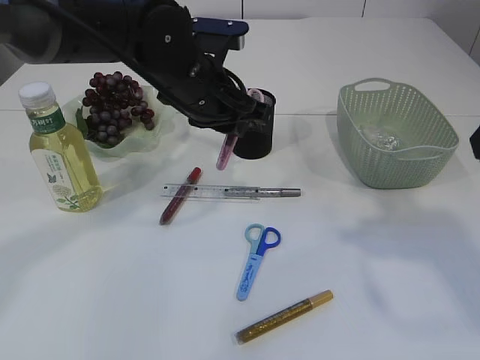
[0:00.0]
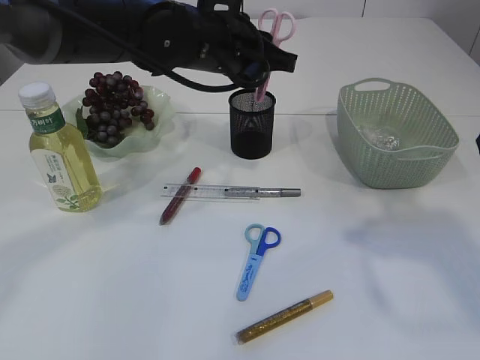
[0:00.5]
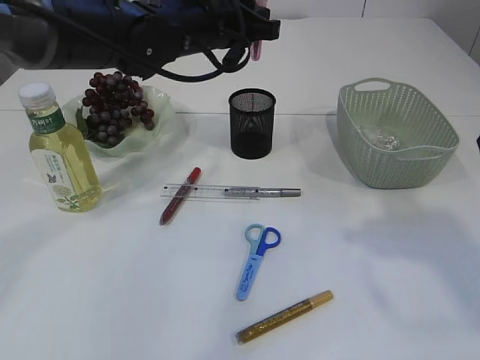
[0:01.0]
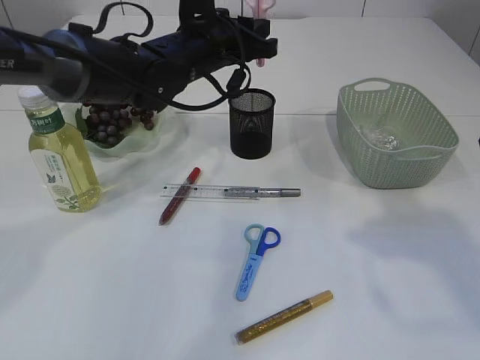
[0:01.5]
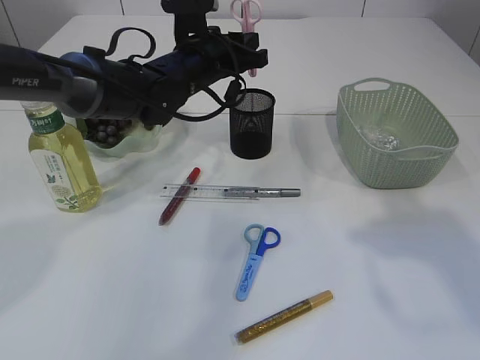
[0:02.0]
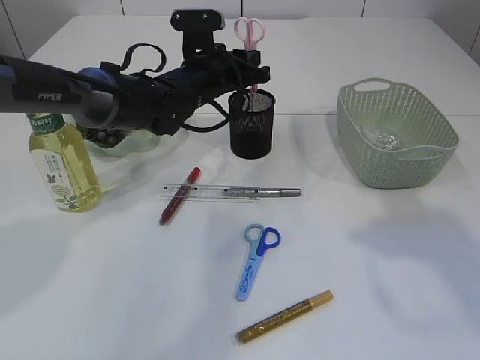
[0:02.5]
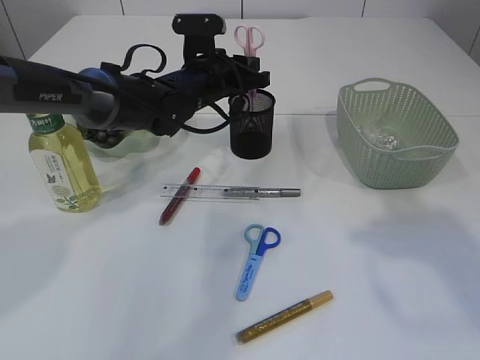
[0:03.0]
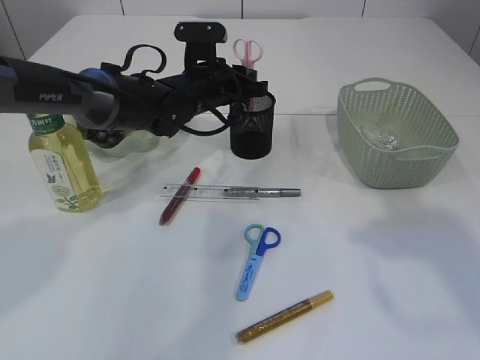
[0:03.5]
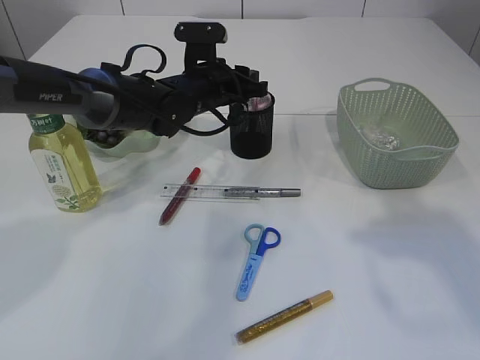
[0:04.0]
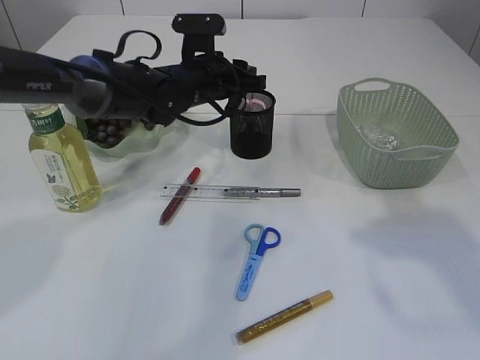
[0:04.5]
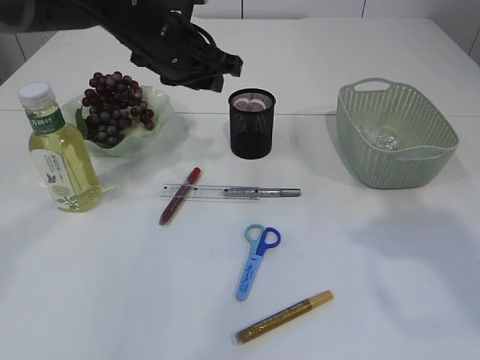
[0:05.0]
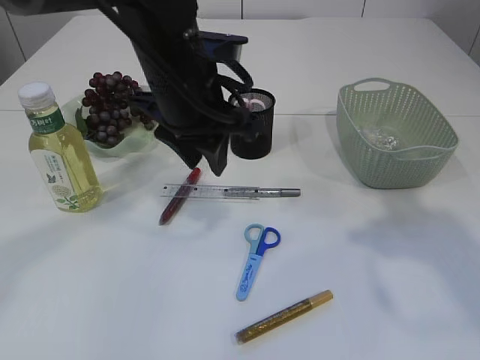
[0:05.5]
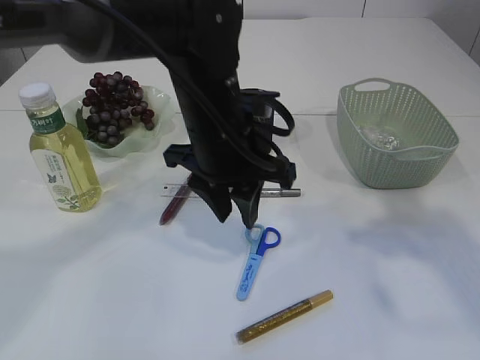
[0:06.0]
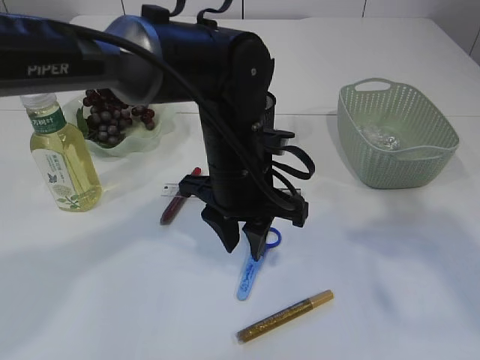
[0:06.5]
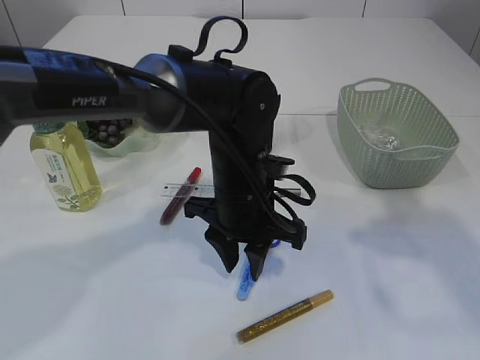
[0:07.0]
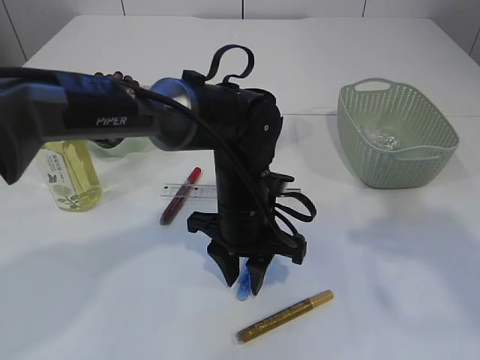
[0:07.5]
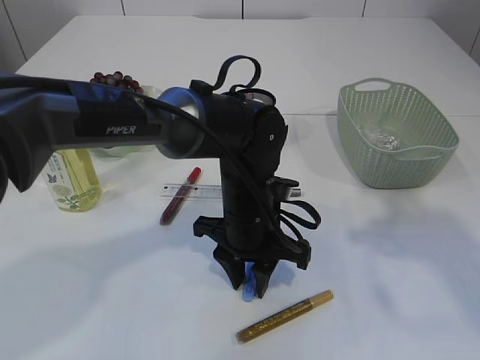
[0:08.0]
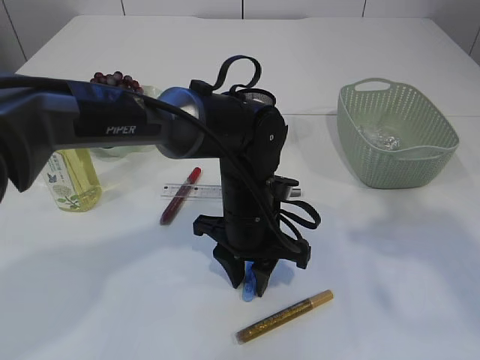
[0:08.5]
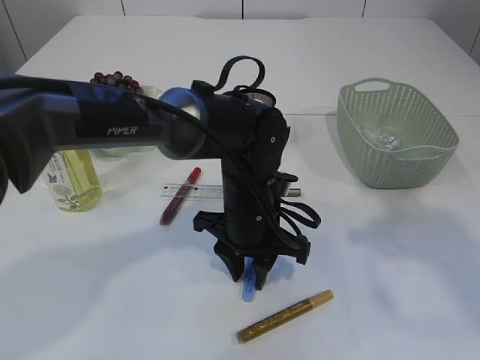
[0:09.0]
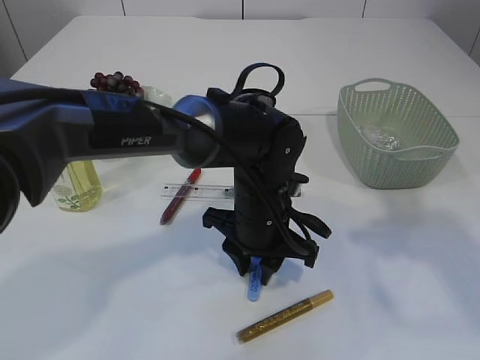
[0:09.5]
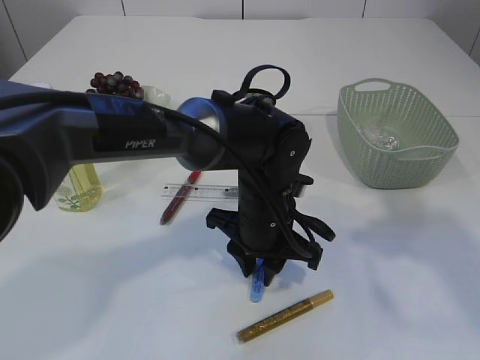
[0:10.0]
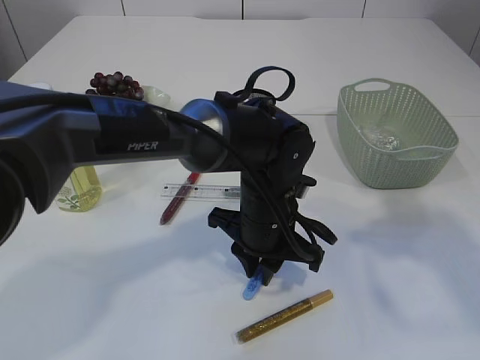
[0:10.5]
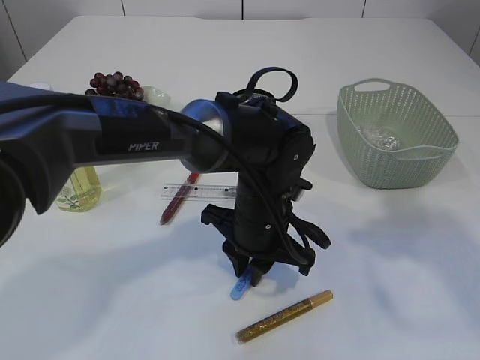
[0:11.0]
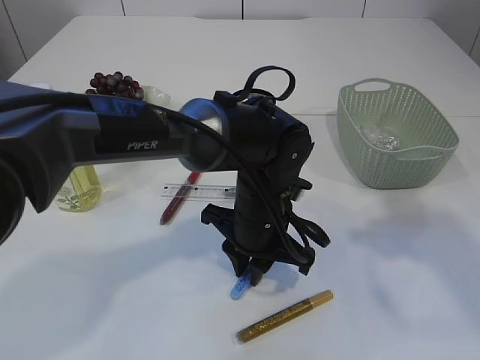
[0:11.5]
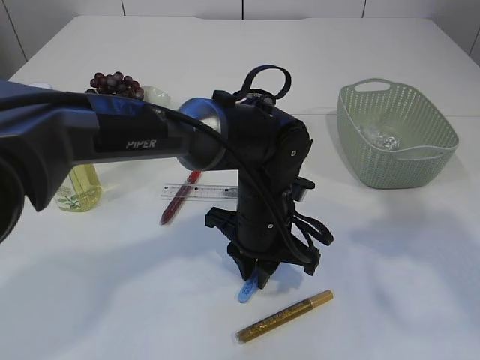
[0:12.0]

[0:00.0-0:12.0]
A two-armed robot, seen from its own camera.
Step, 0:00.0 to 0:04.5: Place the pink scissors into the pen holder.
0:00.0 to 0:02.0: The left gripper travels forward by approximately 10 cm.
0:02.0 to 0:04.0: The grippers make only small movements.
0:04.0 to 0:06.0: The left gripper moves backward, about 15 cm.
0:06.0 to 0:08.0: The left gripper is displaced downward by approximately 10 cm.
0:08.0 to 0:12.0: The grippers make only small movements.

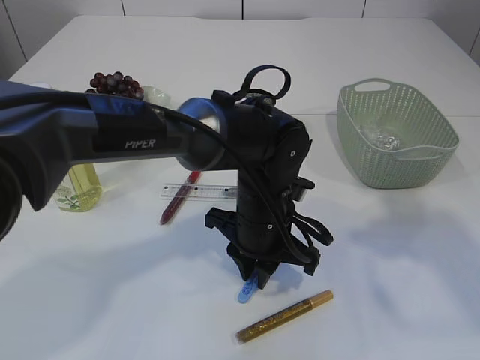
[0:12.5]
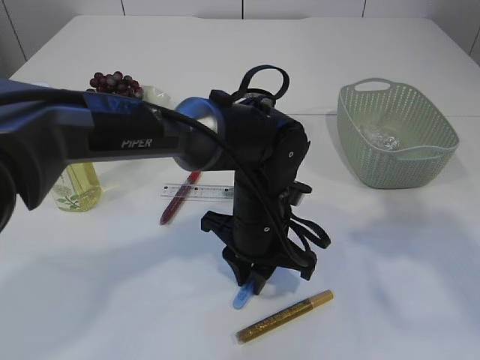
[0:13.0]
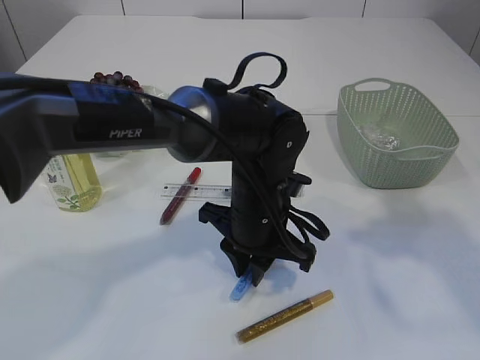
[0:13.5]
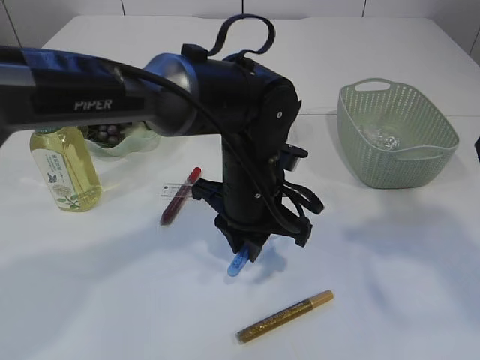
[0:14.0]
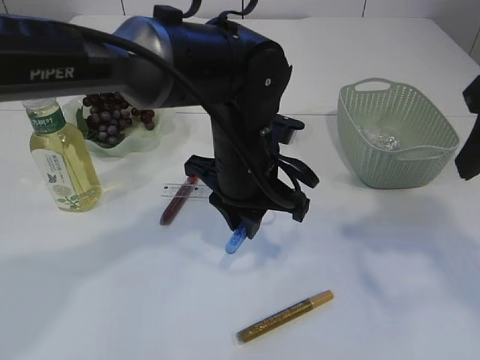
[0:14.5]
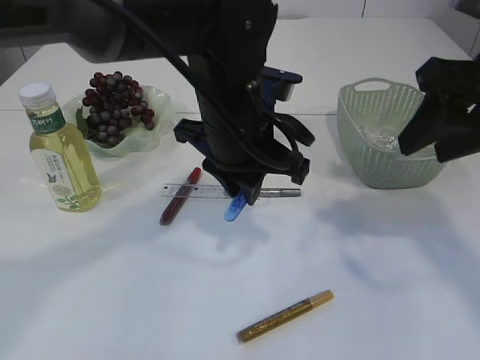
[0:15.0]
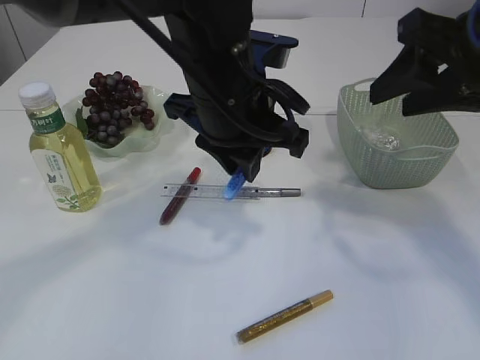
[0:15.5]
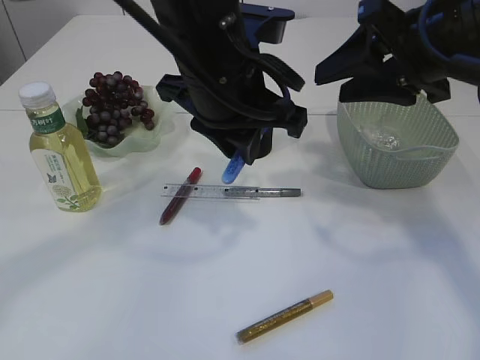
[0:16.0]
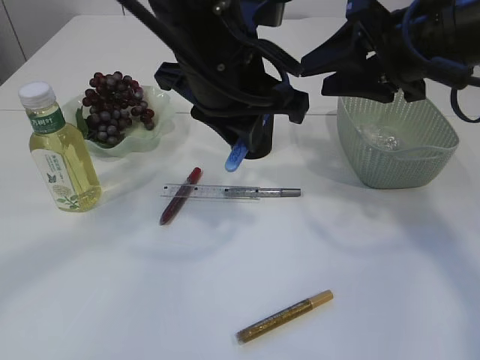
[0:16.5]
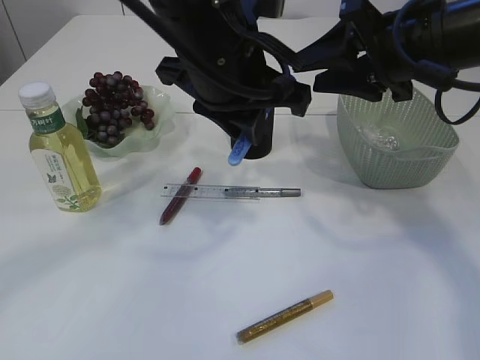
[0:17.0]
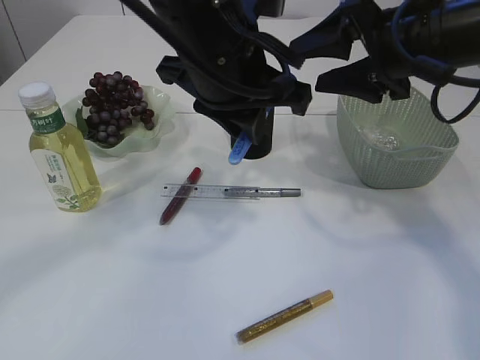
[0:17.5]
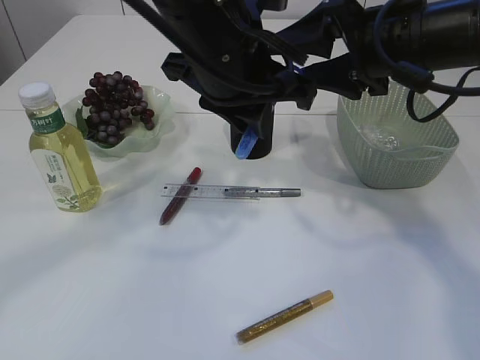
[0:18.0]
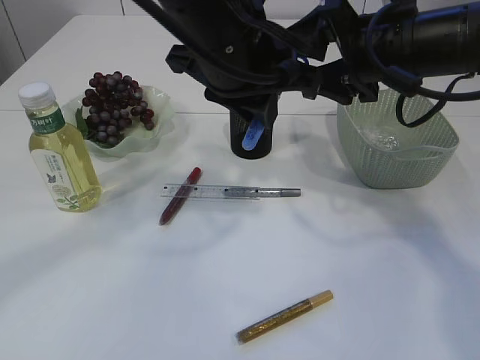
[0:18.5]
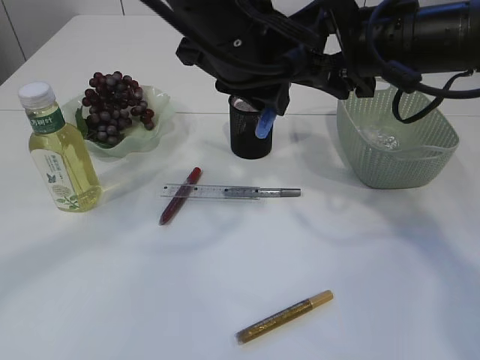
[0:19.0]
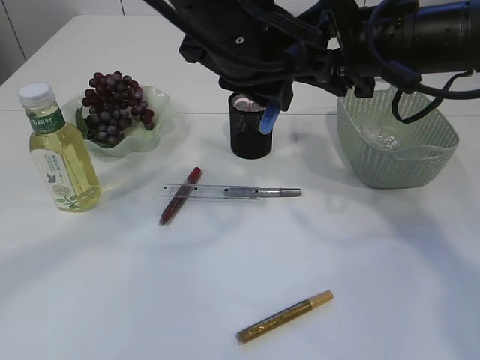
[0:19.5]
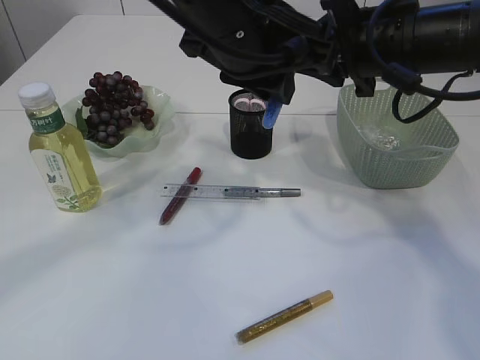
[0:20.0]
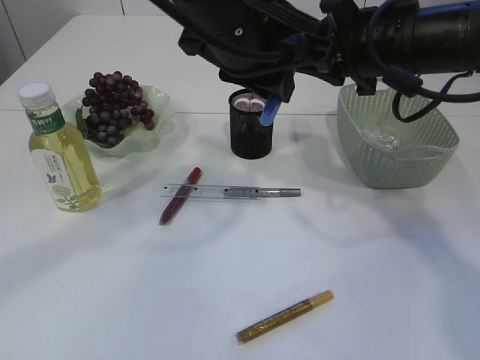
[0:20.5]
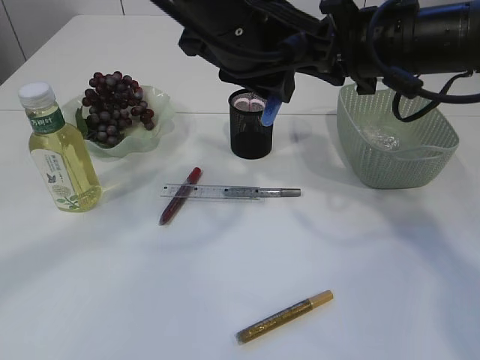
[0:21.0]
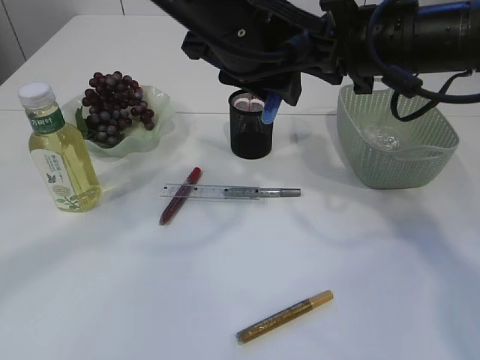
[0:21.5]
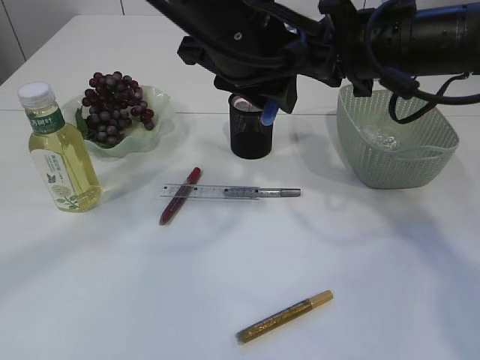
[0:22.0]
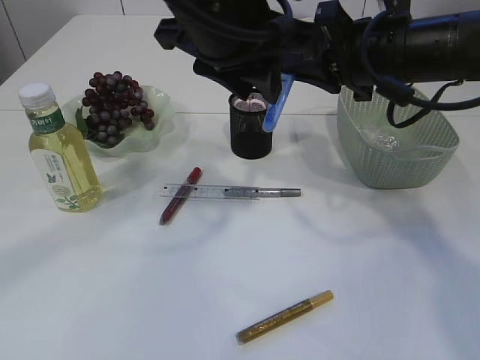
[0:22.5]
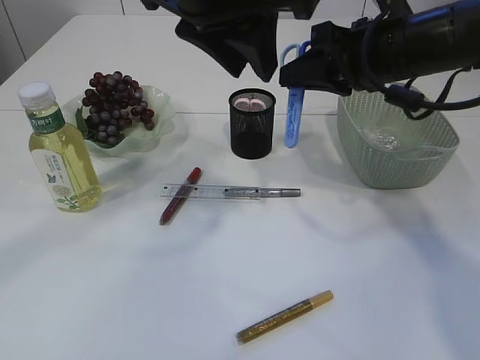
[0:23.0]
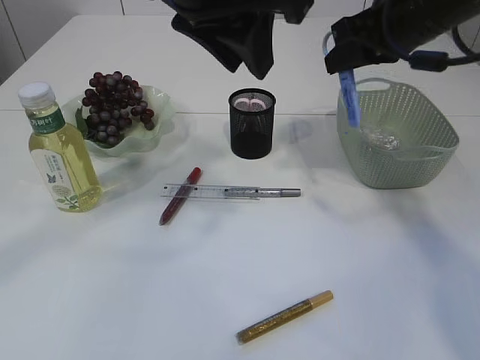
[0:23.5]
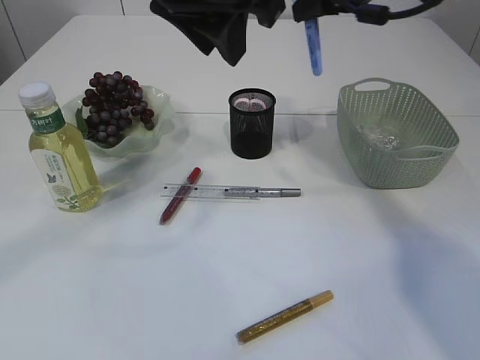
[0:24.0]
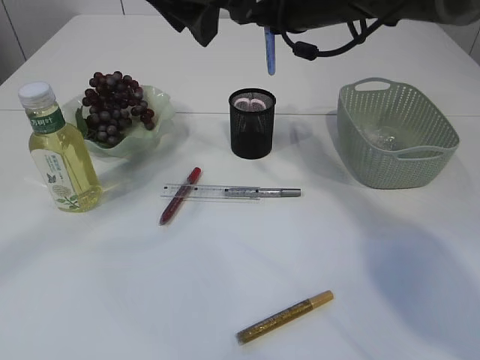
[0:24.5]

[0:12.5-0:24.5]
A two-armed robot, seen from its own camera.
Step, 0:12.5 to 0:14.5: pick up the blue scissors.
Step, 0:15.0 to 0:23.0: Hand over the blue scissors.
0:12.5 to 0:14.5: The left gripper moves upward, approximately 10 cm.
0:14.5 to 0:16.5: The right gripper is displaced forward and to the left by about 10 cm. Meanwhile the left gripper goes some 10 cm upward.
0:16.5 to 0:18.5: The grippers make only small movements.
0:18.5 to 0:20.5: The right gripper closes.
0:20.5 to 0:22.5: The grippers make only small movements.
0:22.5 to 0:24.5: The right gripper goes approximately 15 cm forward and to the left, while the left gripper shifts by some 5 cm.

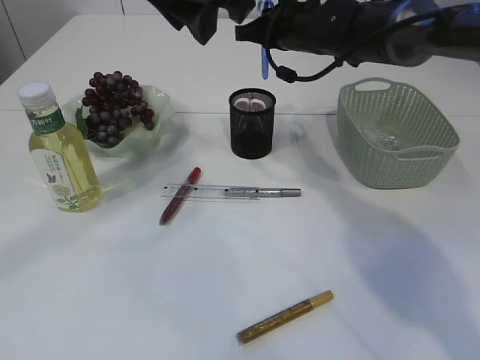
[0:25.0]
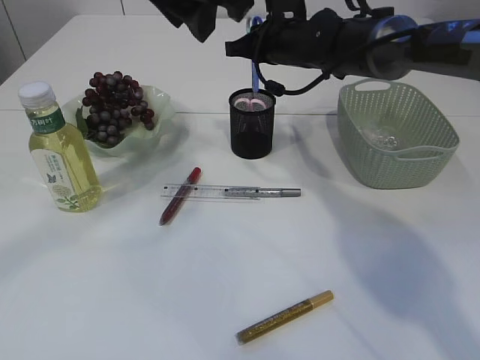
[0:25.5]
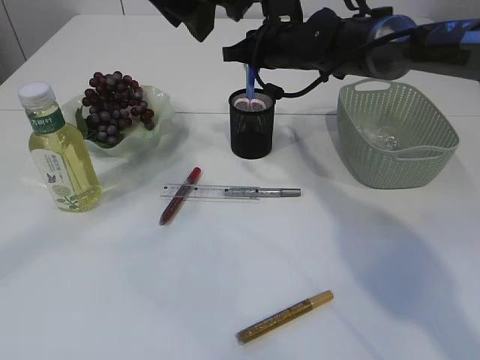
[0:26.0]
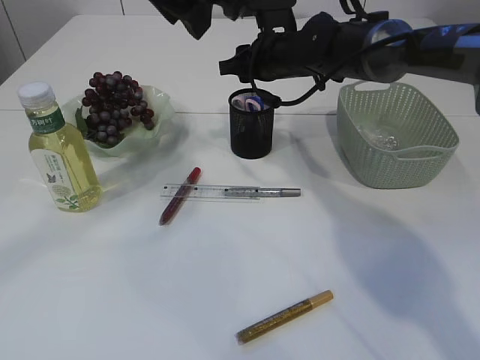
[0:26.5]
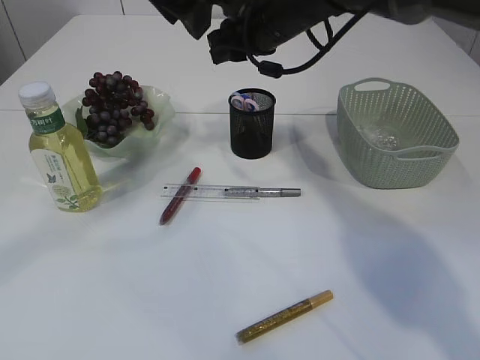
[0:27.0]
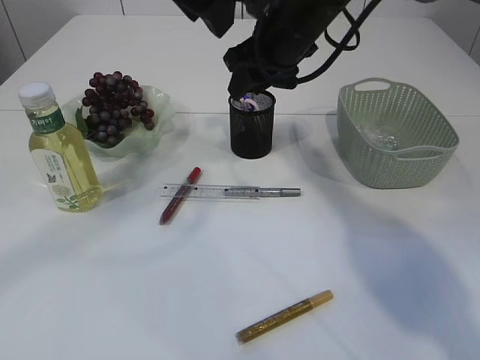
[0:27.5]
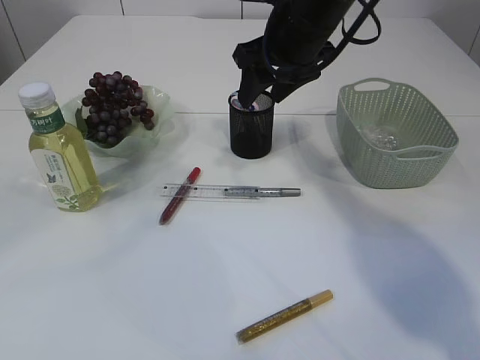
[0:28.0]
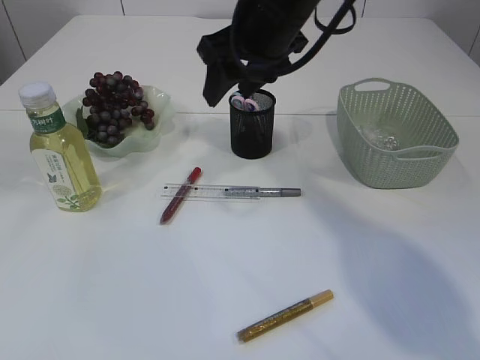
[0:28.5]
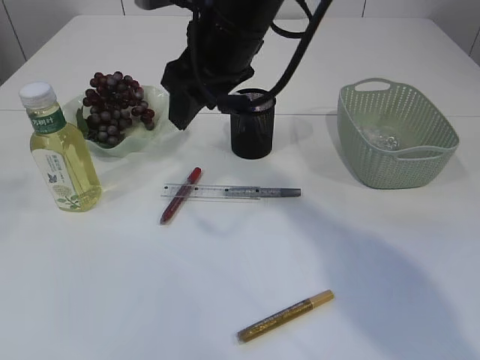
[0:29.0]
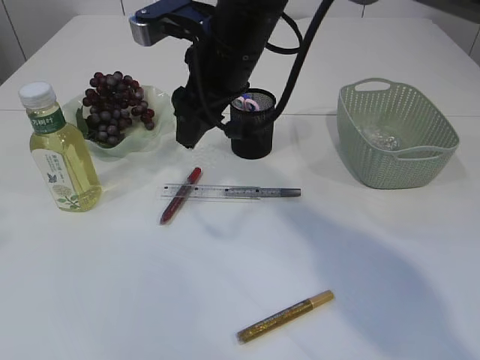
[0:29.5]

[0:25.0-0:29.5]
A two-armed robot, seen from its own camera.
0:25.0 to 0:27.0: The right gripper opens its fingers.
0:27.0 to 0:29.5: The right gripper is displaced backward and to the left by approximately 10 cm; the left gripper is displaced to the left and backward by approximately 25 cm.
